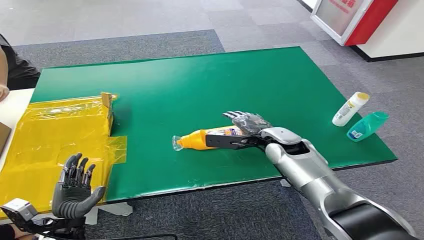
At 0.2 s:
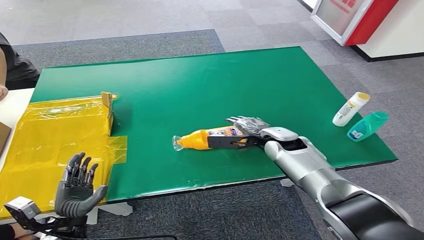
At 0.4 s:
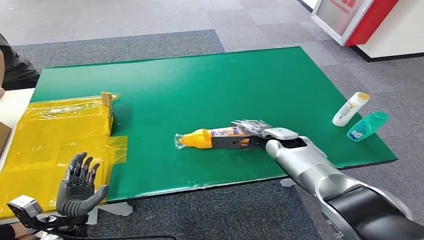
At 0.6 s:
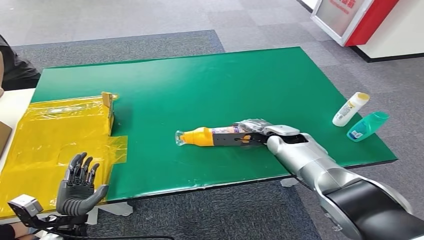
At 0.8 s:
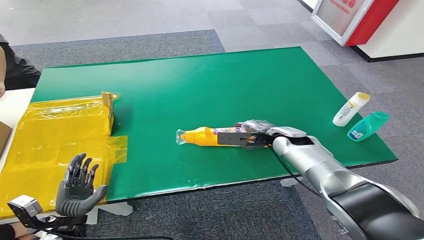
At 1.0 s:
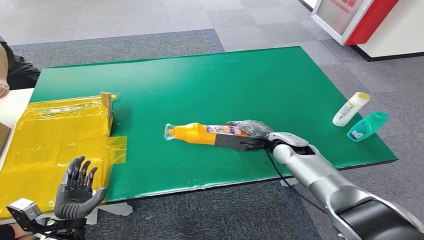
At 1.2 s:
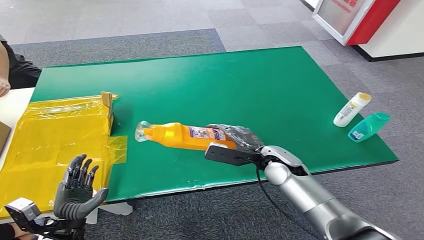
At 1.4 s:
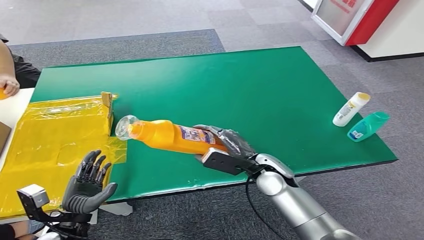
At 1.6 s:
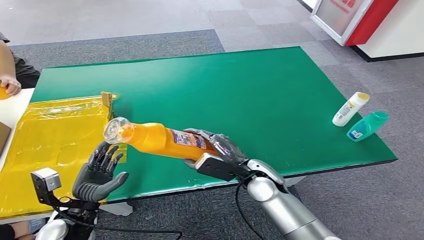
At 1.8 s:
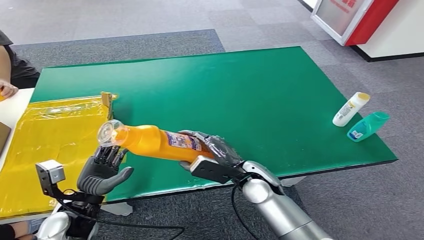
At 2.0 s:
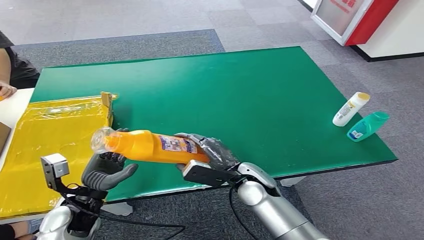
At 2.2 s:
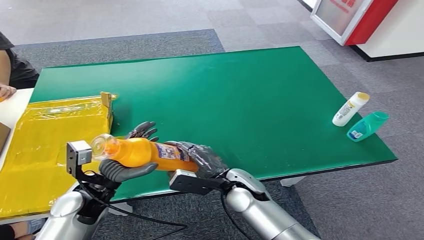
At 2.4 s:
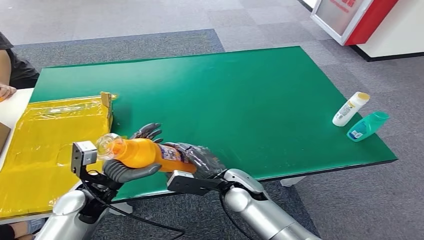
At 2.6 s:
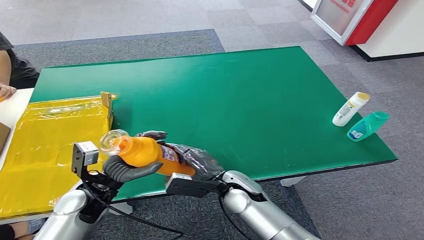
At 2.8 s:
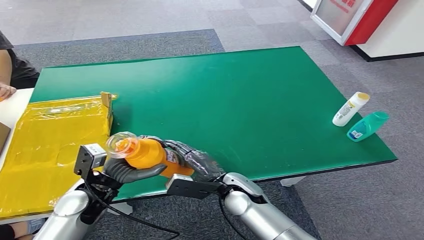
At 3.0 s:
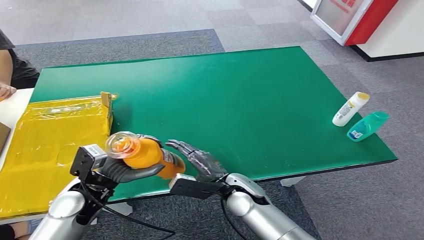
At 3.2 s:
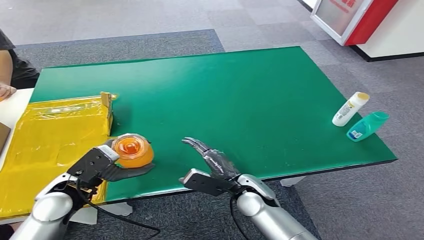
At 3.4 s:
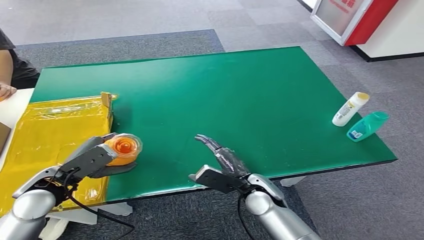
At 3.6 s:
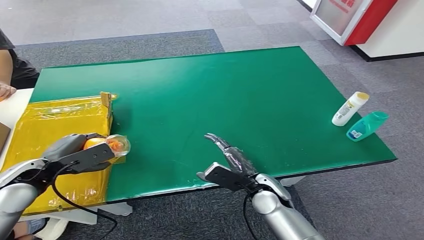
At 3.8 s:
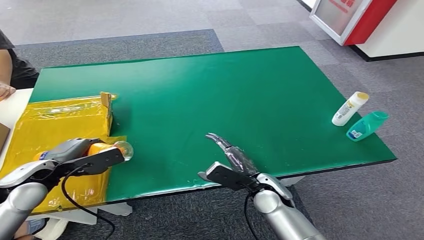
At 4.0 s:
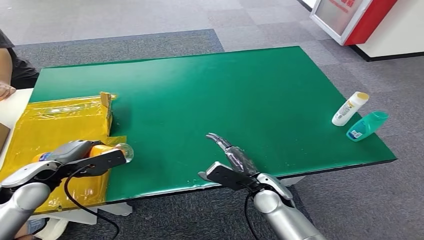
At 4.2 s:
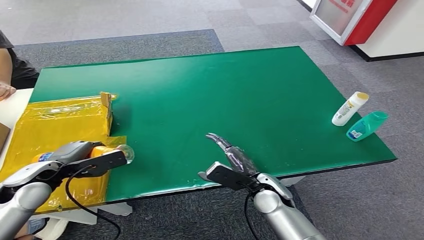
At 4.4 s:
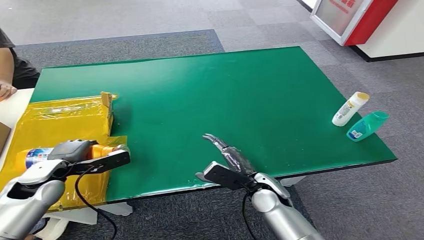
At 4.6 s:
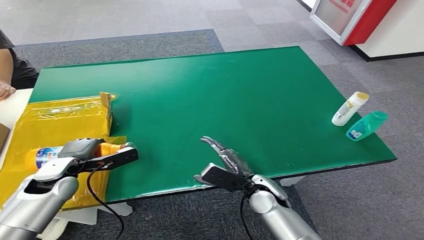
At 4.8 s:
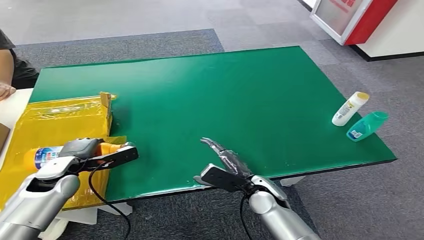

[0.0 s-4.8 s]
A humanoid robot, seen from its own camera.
Step, 0.0 to 1.6 s: Pick up the bottle from the table.
Step, 1.8 to 4.6 s: Turn the bottle to the front side.
1.6 to 3.2 s: The right hand moves approximately 5 cm. Meanwhile the left hand travels upward and forward by about 10 cm.
3.2 to 4.8 s: The left hand is displaced forward by about 5 cm.
